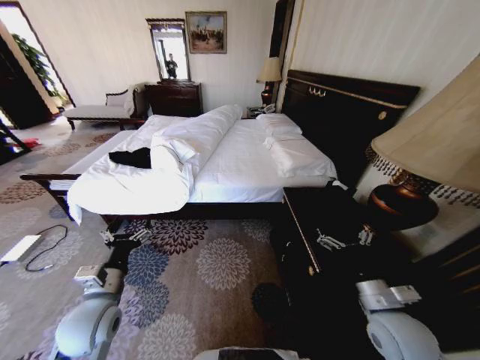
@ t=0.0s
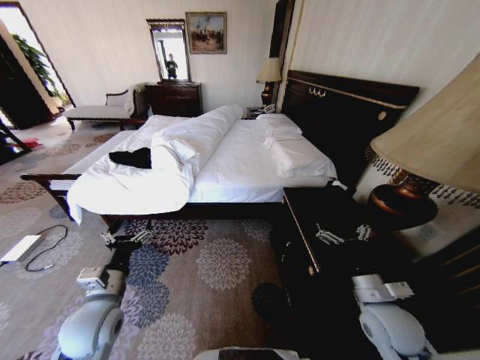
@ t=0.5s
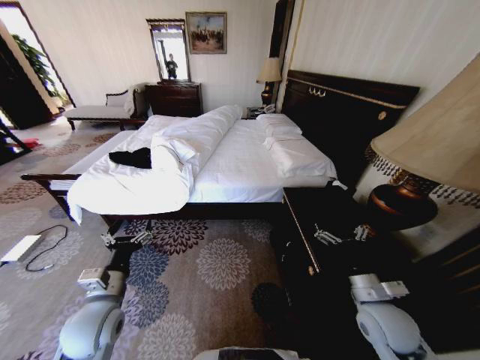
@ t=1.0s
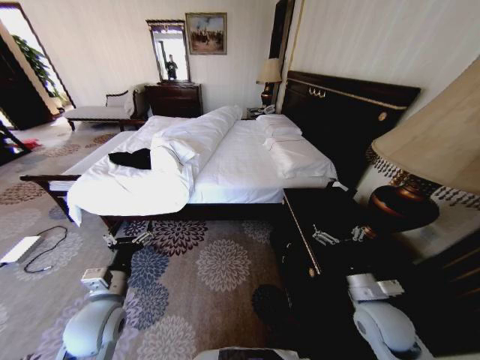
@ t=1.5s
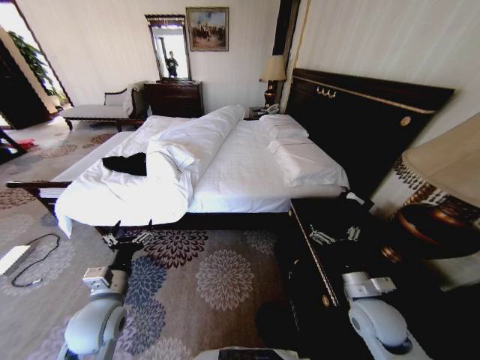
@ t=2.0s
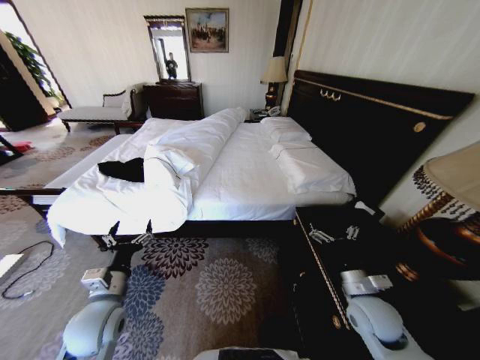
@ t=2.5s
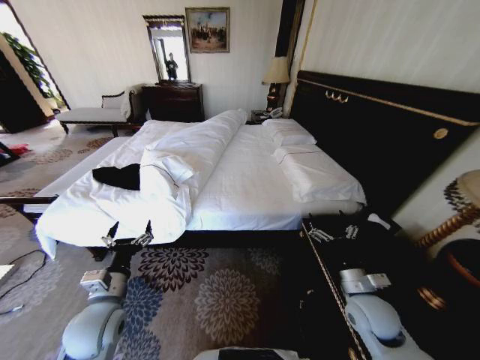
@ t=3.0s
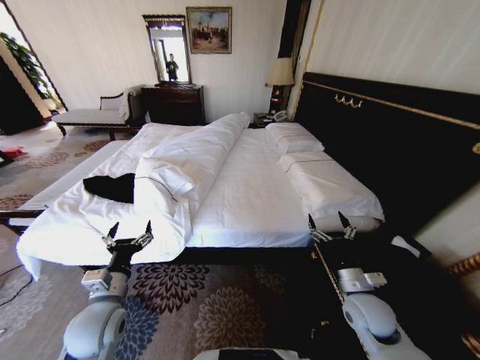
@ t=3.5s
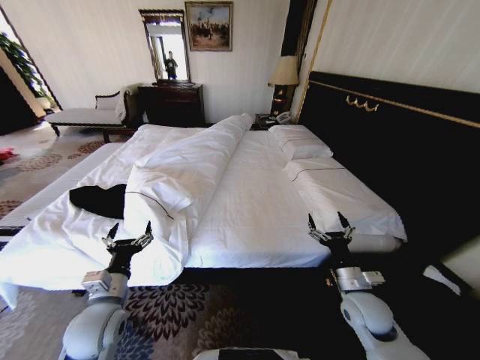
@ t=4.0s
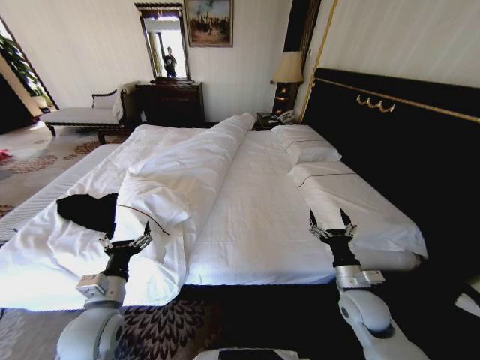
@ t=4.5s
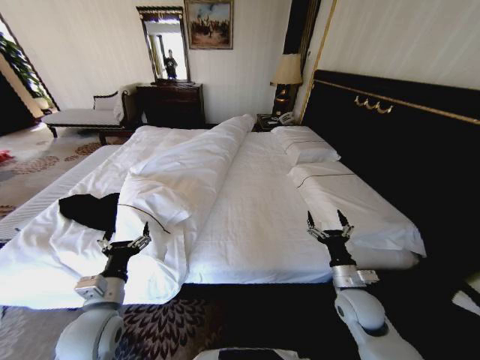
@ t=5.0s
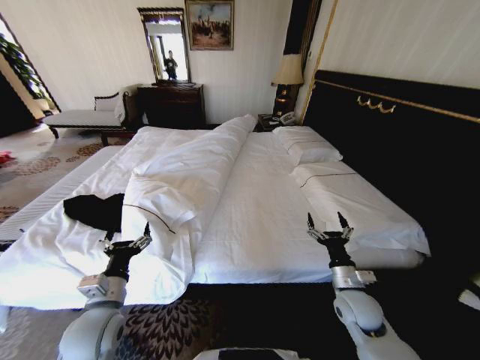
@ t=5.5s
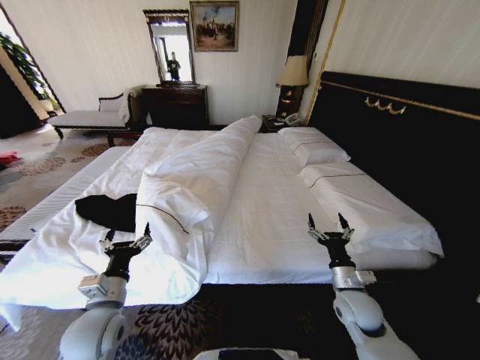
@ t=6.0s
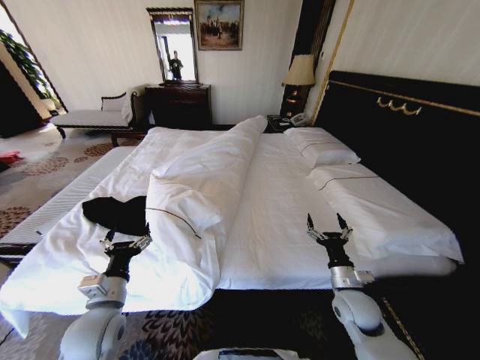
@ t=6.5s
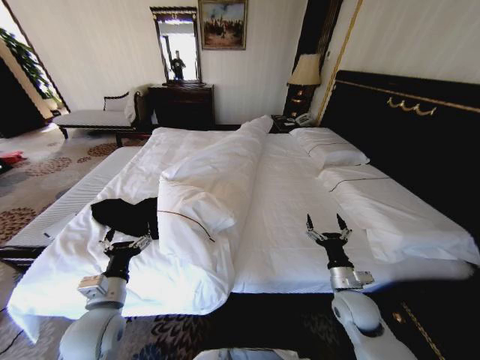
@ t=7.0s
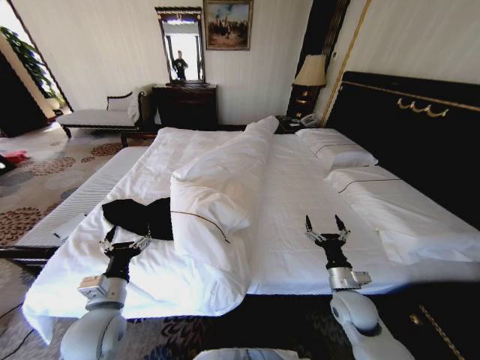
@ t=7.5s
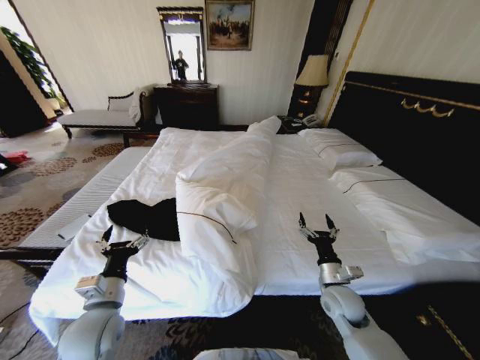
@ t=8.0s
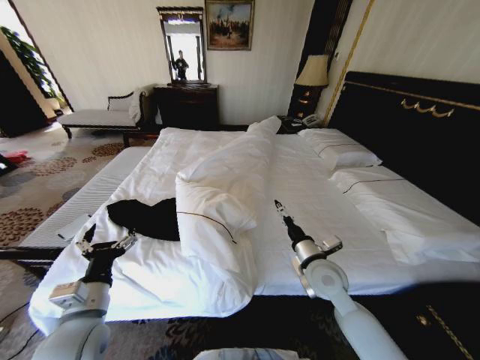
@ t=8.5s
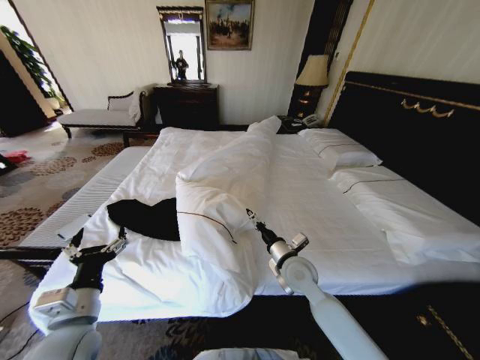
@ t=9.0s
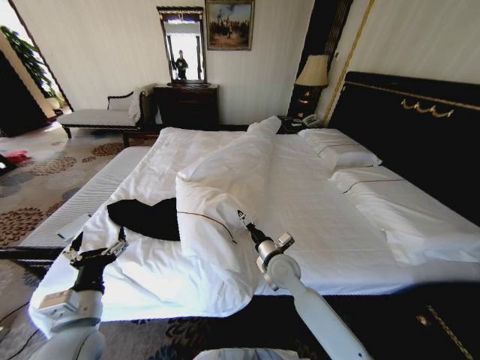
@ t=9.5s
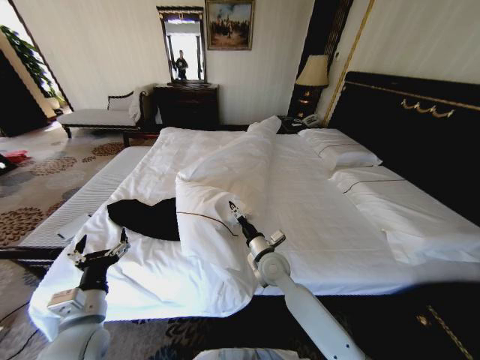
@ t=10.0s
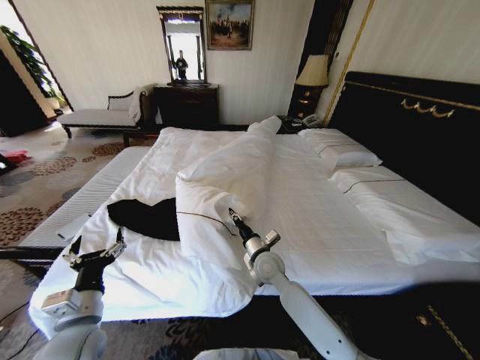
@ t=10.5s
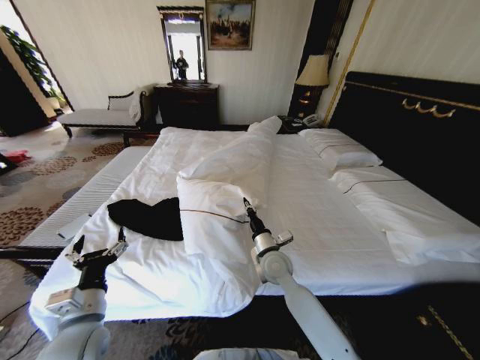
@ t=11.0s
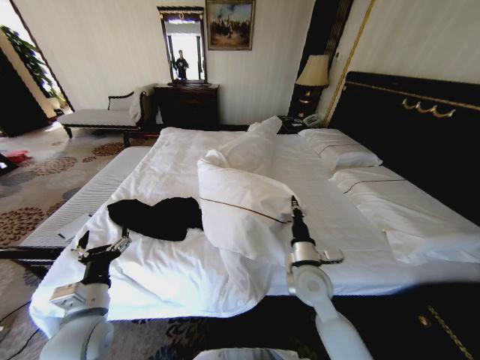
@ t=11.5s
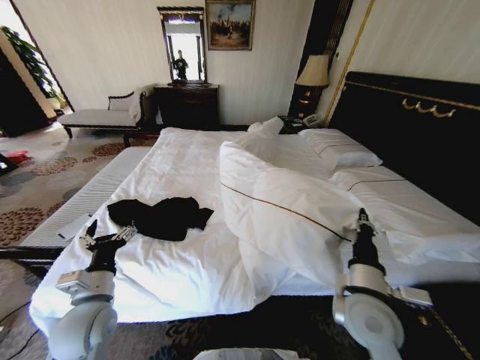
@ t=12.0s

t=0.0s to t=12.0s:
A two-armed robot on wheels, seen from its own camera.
Task of the whole recording: Fold the clothes on the bed.
t=8.0s to t=10.0s: The right gripper heads to the left and forward, covering about 20 cm.
t=10.0s to t=12.0s: The right gripper shifts approximately 20 cm backward, to the right and upward, and closes.

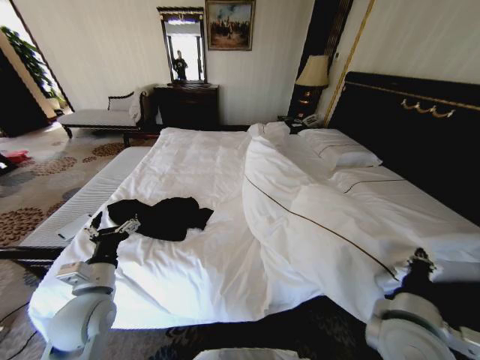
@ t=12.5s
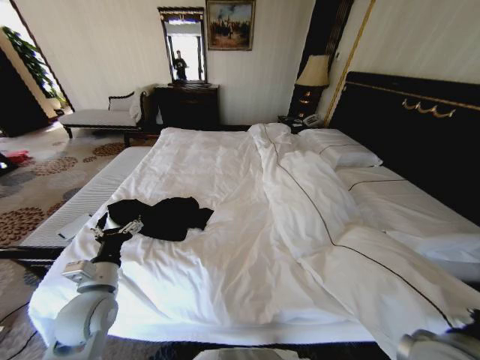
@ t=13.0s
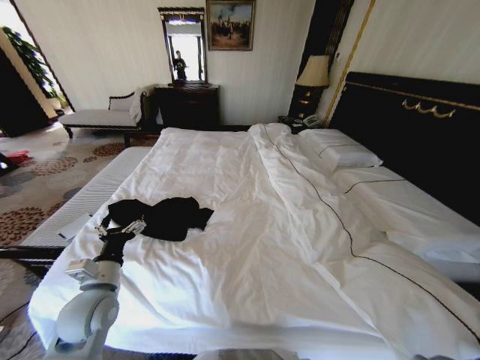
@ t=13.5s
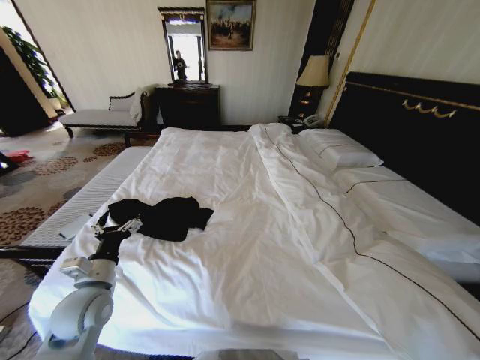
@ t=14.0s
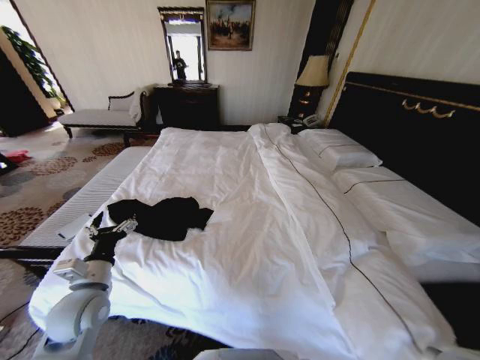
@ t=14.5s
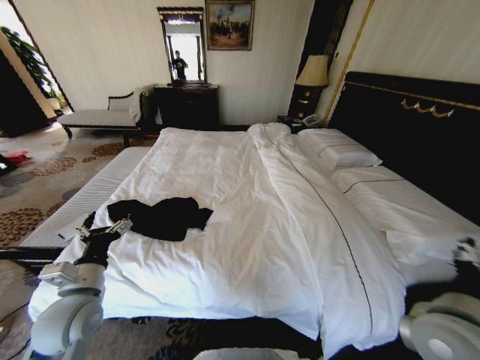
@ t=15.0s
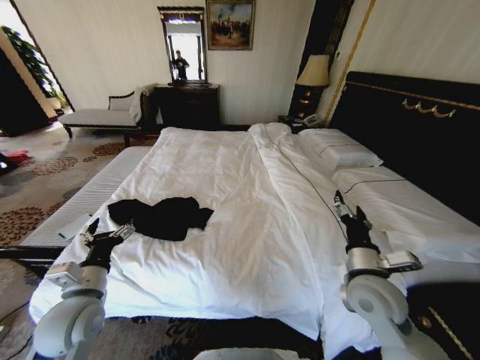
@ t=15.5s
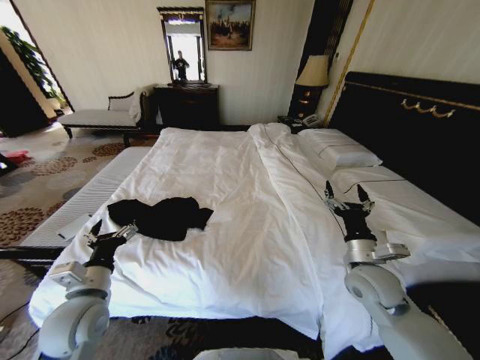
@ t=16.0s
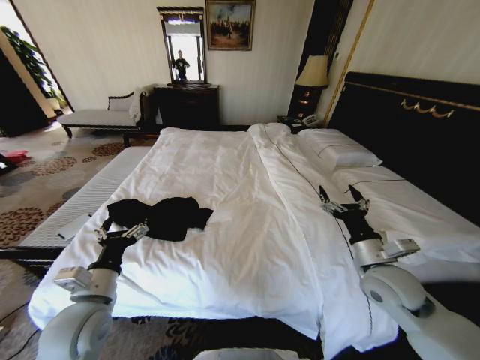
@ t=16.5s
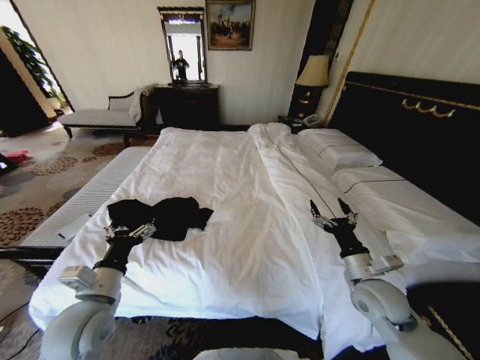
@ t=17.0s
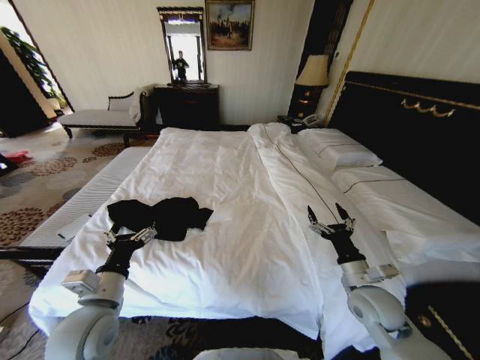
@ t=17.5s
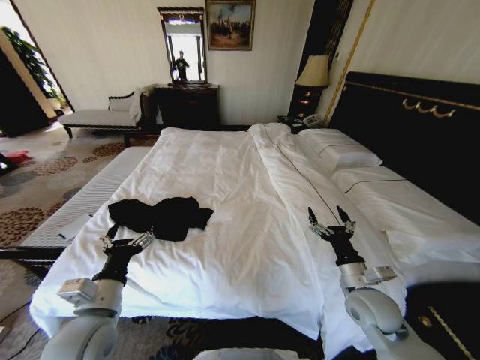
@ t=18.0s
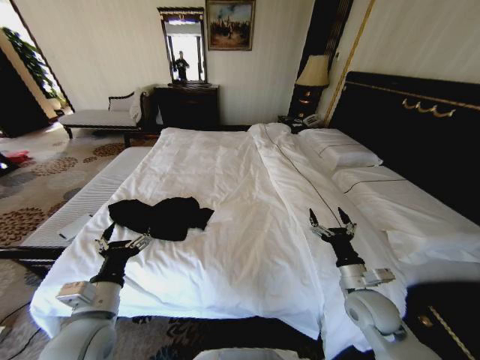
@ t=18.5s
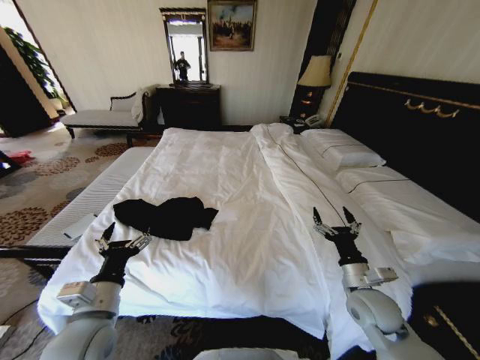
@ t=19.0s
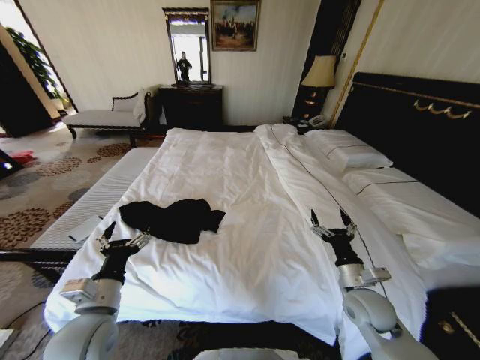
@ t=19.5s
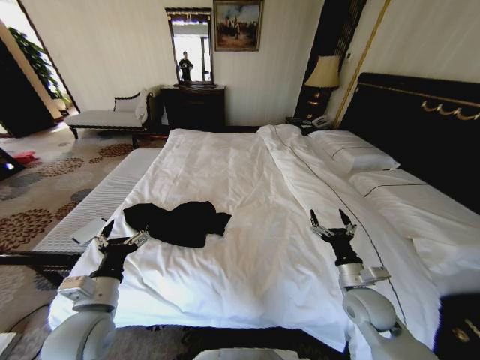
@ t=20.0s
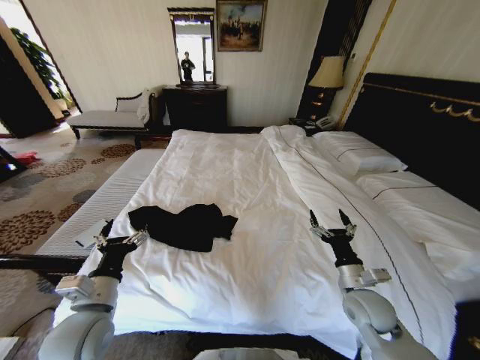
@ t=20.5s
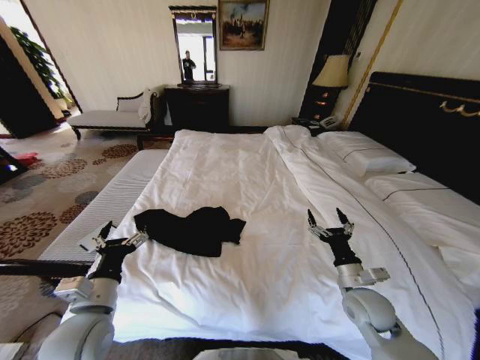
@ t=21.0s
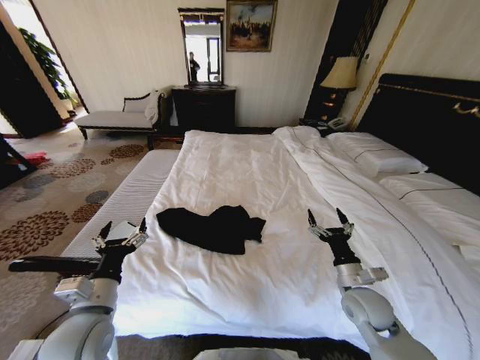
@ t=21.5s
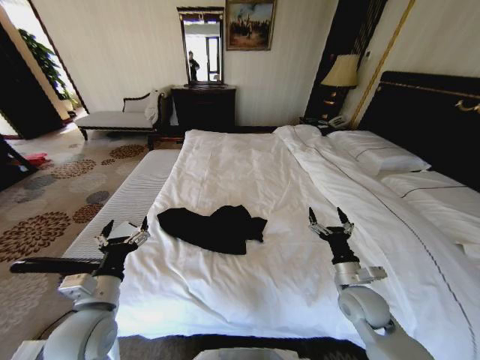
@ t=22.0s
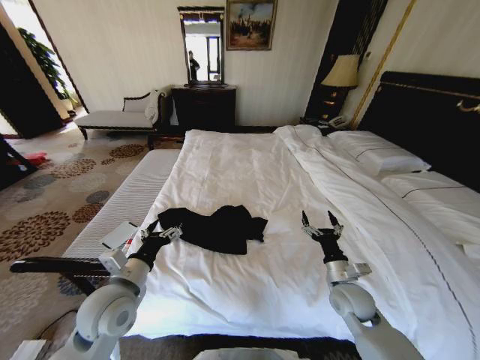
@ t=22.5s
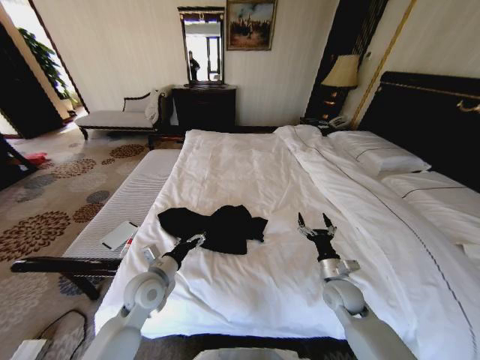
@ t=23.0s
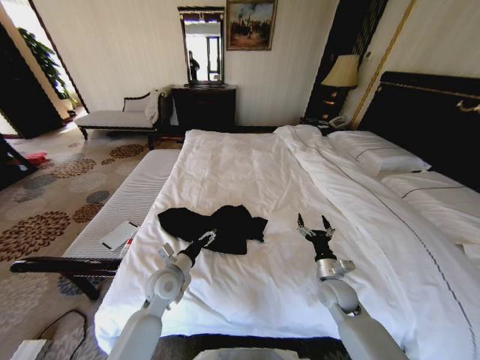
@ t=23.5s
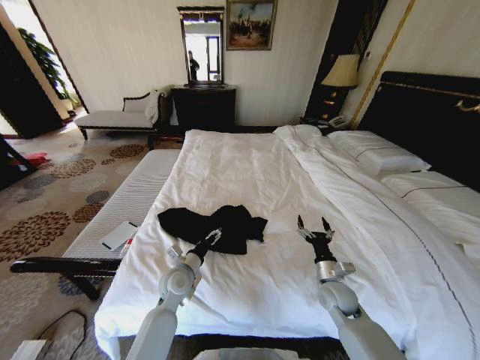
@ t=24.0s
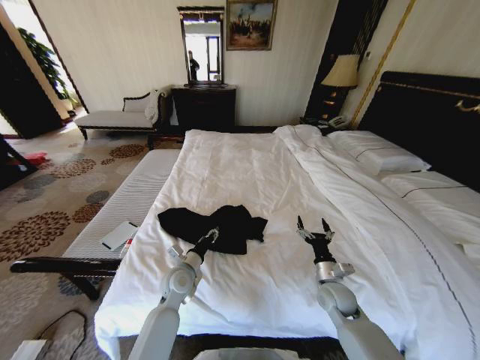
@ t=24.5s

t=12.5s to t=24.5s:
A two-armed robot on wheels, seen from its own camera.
Task of the whole recording: Fold the clothes on the bed.
t=12.5s to t=14.5s: The right gripper goes some 5 cm to the right.
t=14.5s to t=16.5s: The right gripper is displaced forward by about 15 cm, and opens up. Meanwhile the left gripper moves about 5 cm.
t=16.5s to t=18.5s: The right gripper is displaced downward by some 10 cm.
t=20.5s to t=22.5s: The left gripper ends up about 5 cm from where it was.
t=22.5s to t=24.5s: The right gripper heads downward, covering some 5 cm. The left gripper goes some 20 cm downward, forward and to the right, and closes.

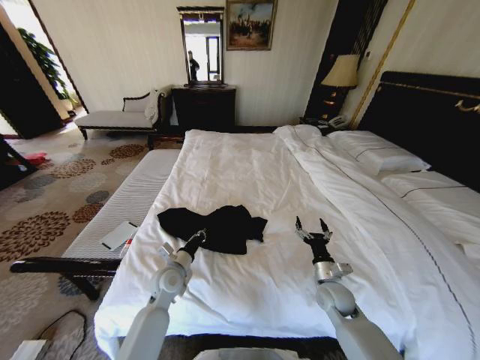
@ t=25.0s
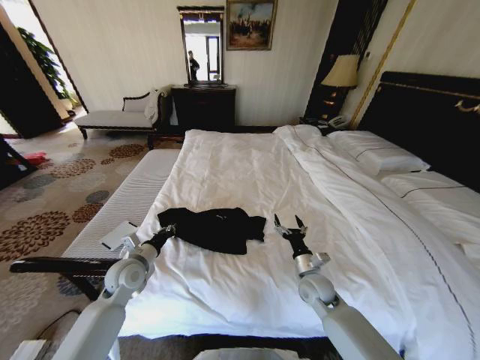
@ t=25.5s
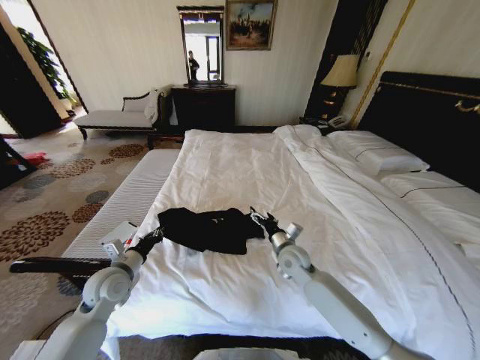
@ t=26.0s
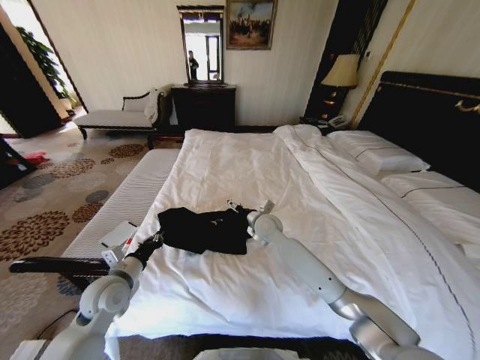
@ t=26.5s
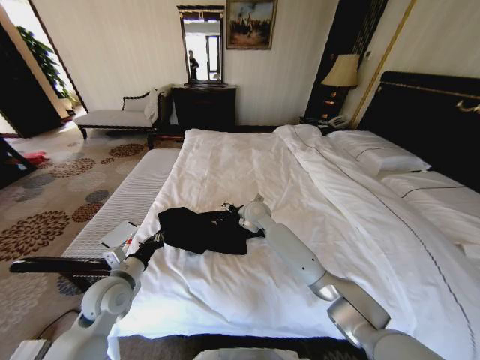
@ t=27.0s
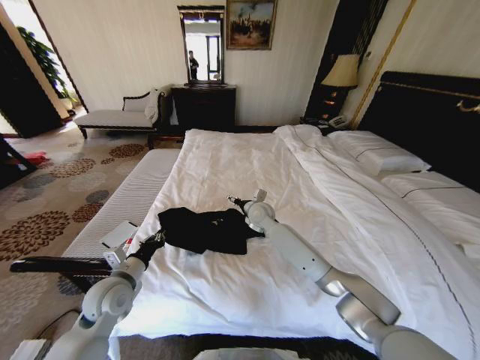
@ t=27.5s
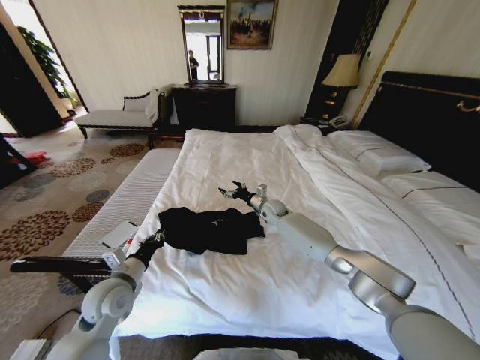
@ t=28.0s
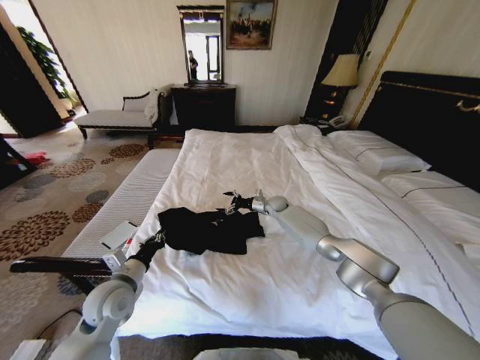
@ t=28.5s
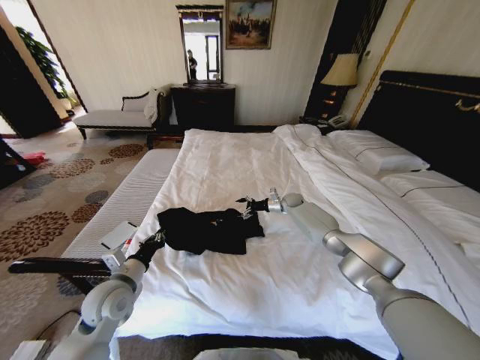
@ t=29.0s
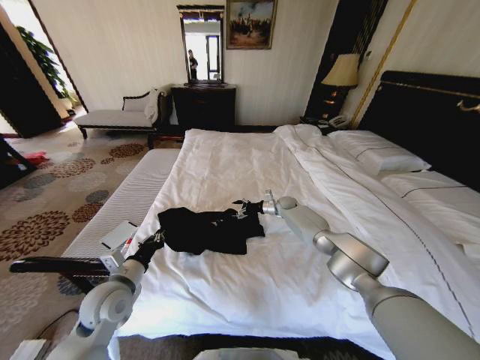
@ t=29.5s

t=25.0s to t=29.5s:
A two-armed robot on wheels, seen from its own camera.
Task of the whole recording: Fold the clothes on the bed.
t=25.0s to t=27.0s: The right gripper is displaced to the left, forward and upward by approximately 35 cm; the left gripper shifts some 15 cm to the left, upward and backward.
t=27.0s to t=29.5s: The right gripper shifts roughly 25 cm to the right, forward and downward.
